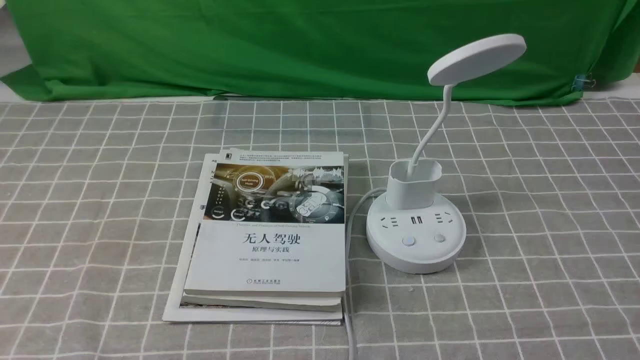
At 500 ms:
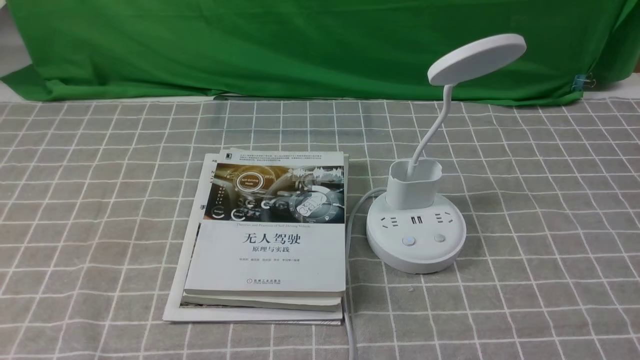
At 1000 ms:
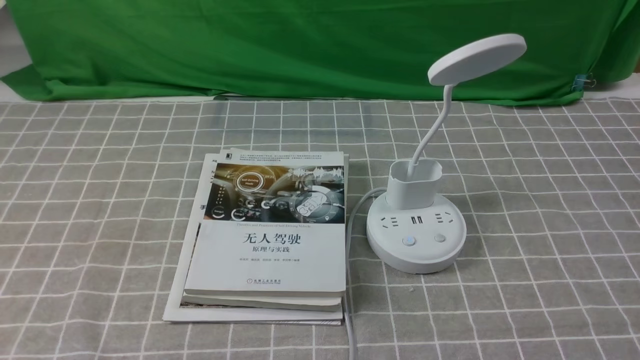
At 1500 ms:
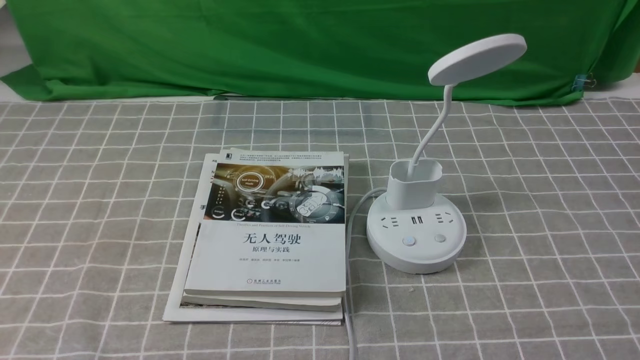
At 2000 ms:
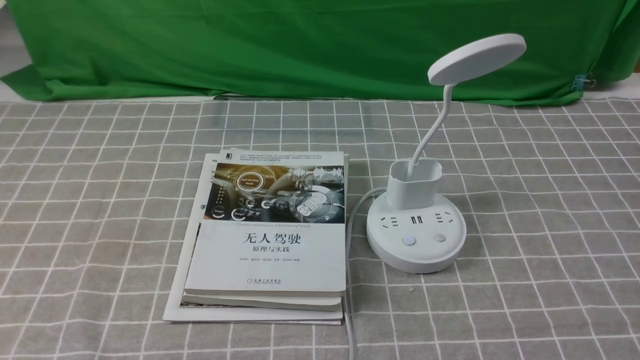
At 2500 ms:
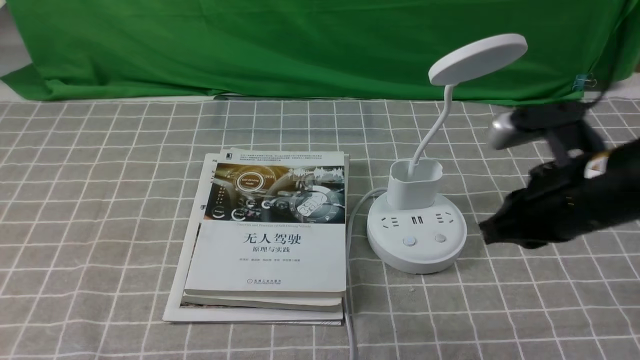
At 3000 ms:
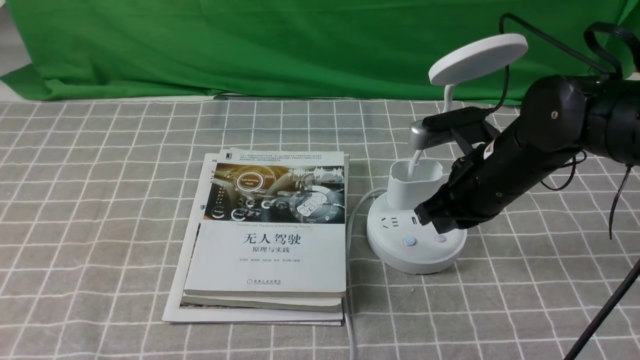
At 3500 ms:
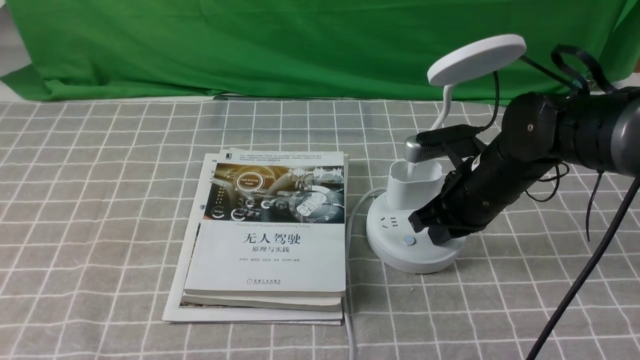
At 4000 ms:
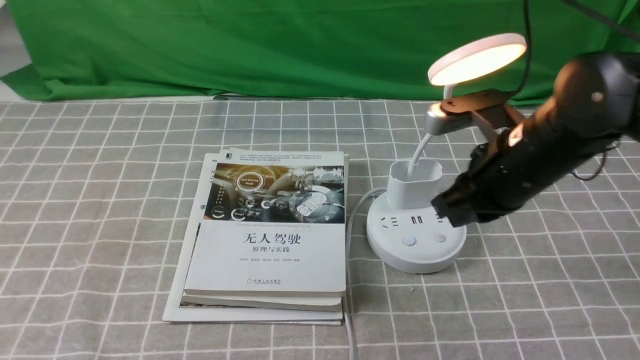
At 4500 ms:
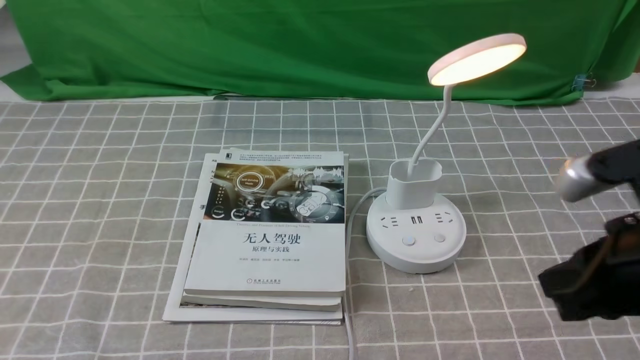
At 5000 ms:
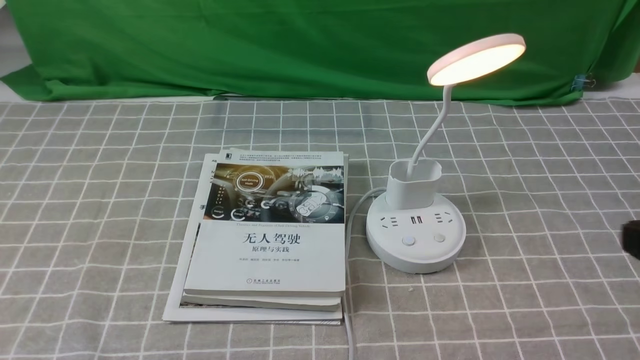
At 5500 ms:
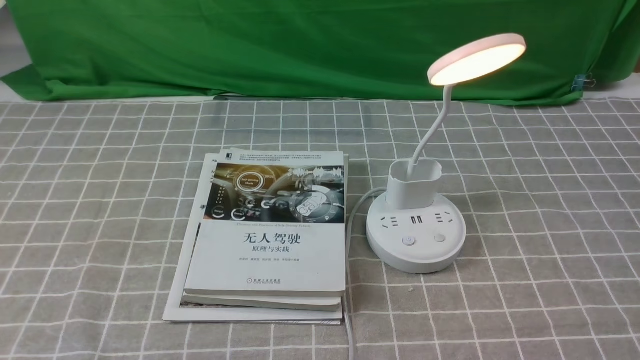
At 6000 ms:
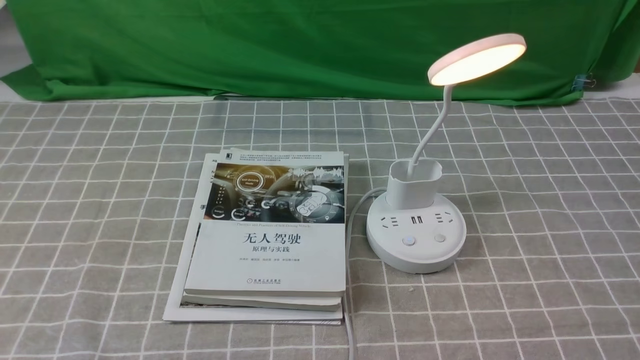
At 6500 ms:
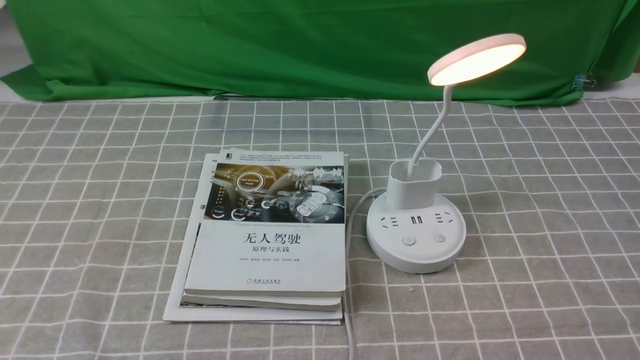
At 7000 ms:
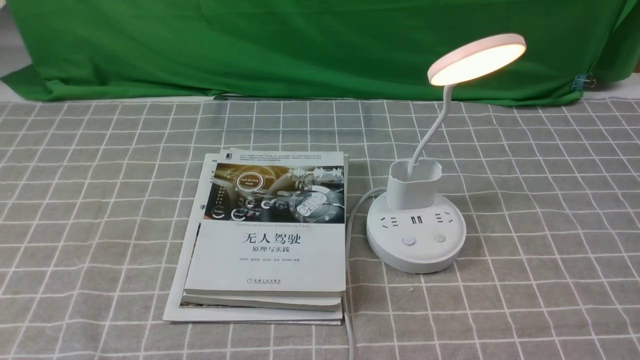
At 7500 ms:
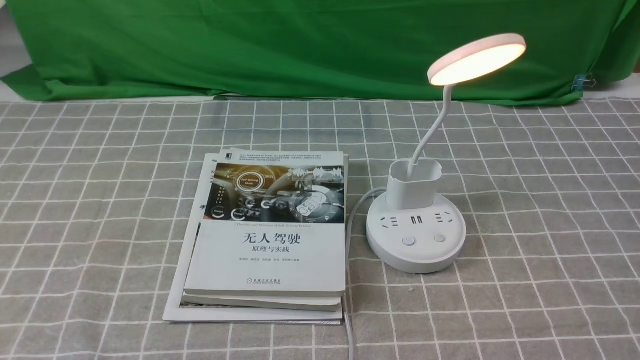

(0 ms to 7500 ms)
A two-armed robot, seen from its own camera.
Step, 0 ms - 3500 ms: use the right arm to press the button switch on the lamp holder.
2000 ms - 4000 ms: The right gripper heads forward and to the left, covering about 20 cm.
4000 ms - 5500 ms: The right gripper shifts roughly 30 cm backward and to the right.

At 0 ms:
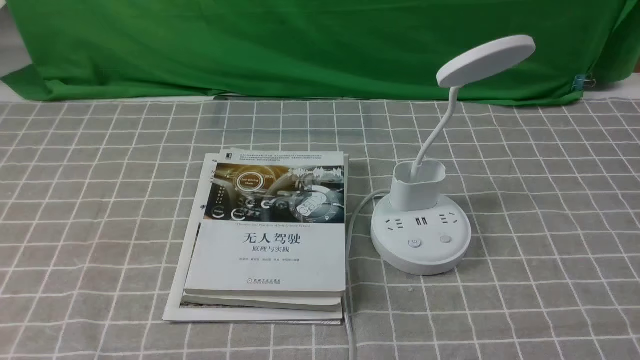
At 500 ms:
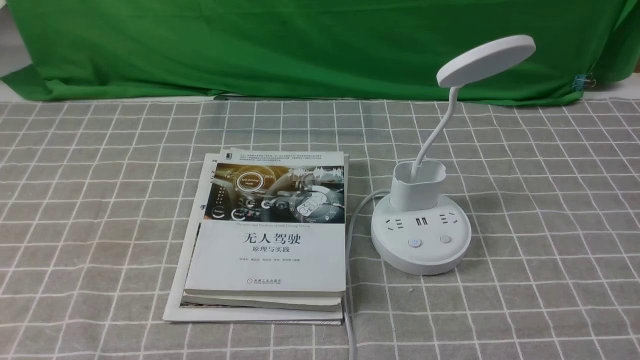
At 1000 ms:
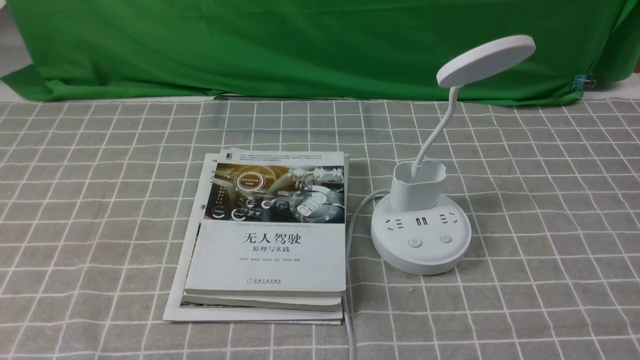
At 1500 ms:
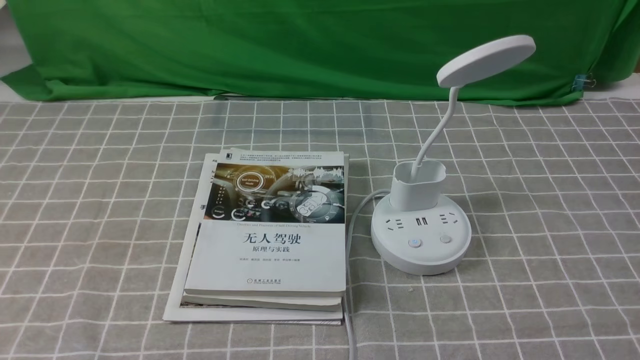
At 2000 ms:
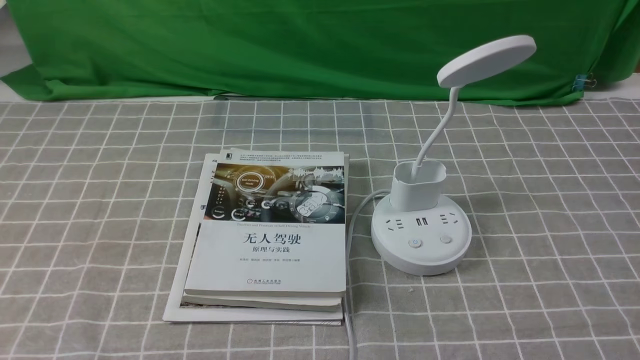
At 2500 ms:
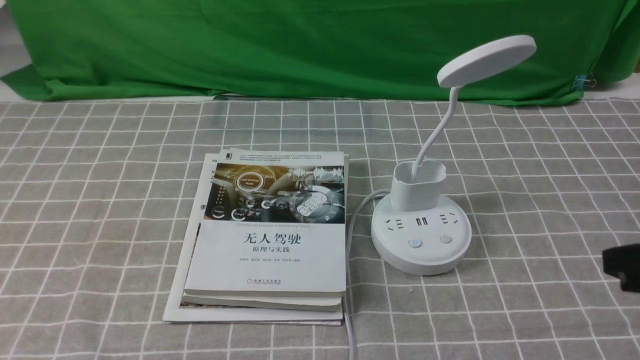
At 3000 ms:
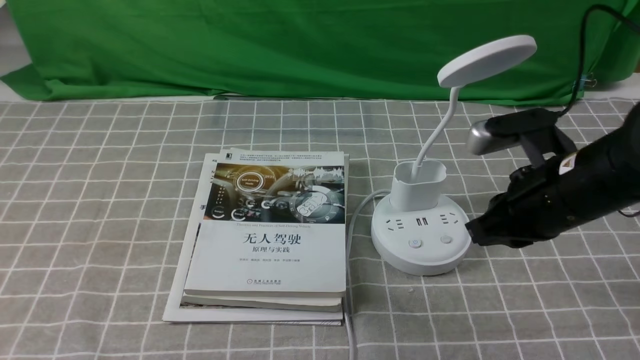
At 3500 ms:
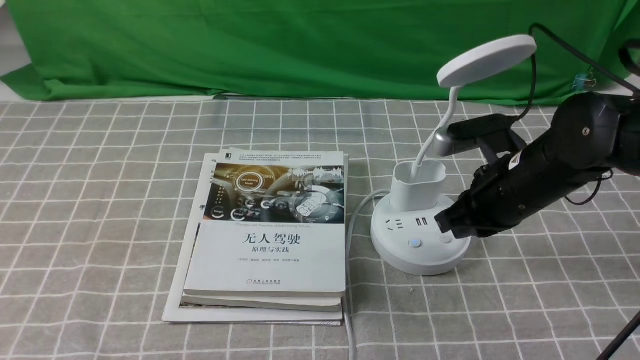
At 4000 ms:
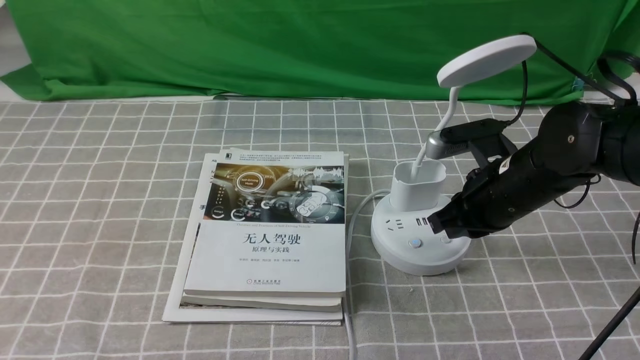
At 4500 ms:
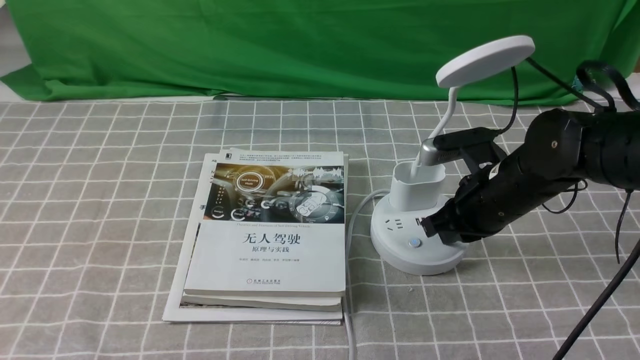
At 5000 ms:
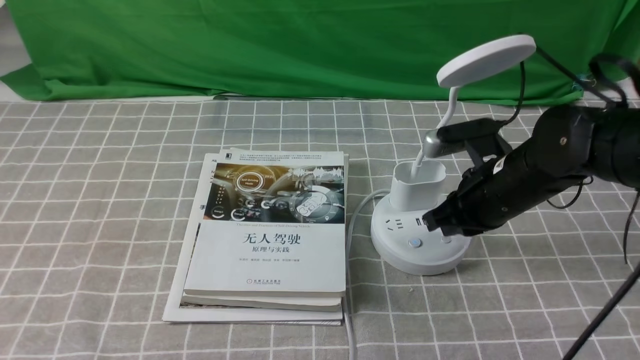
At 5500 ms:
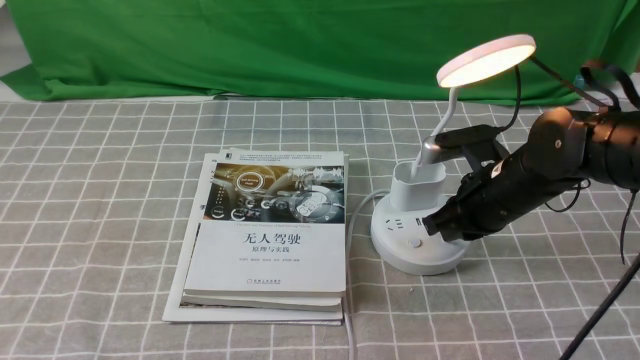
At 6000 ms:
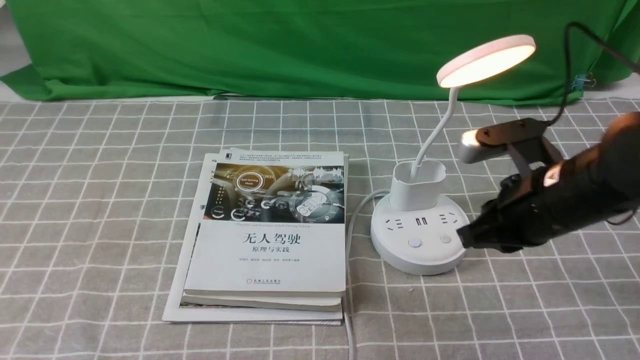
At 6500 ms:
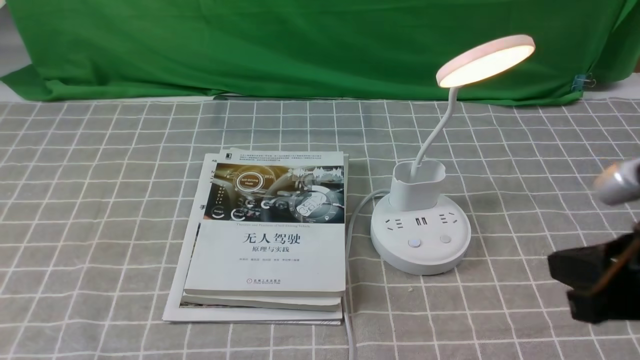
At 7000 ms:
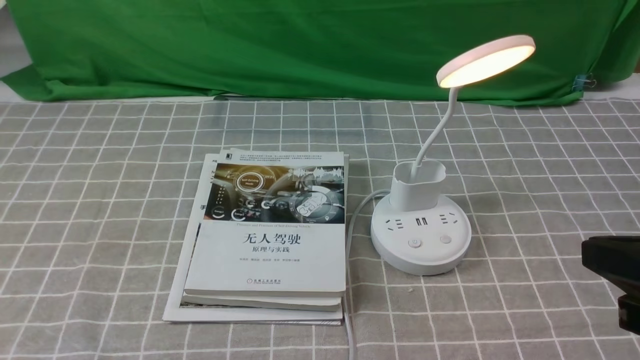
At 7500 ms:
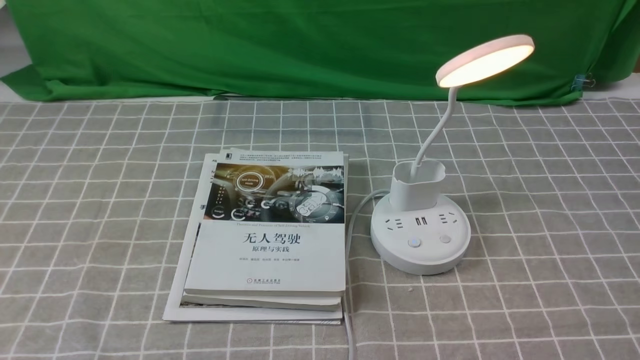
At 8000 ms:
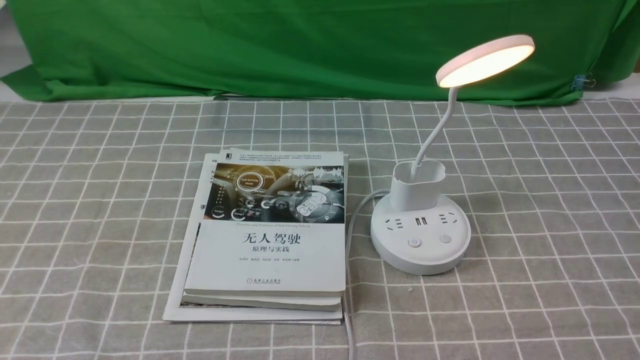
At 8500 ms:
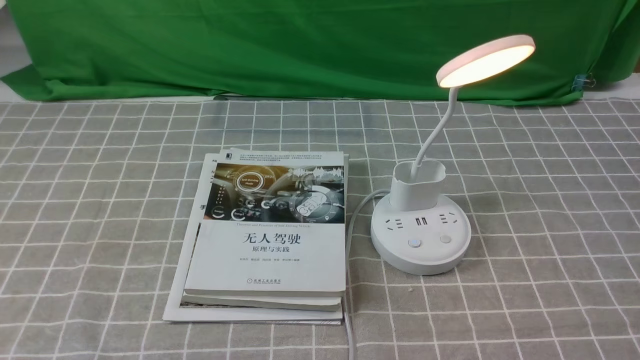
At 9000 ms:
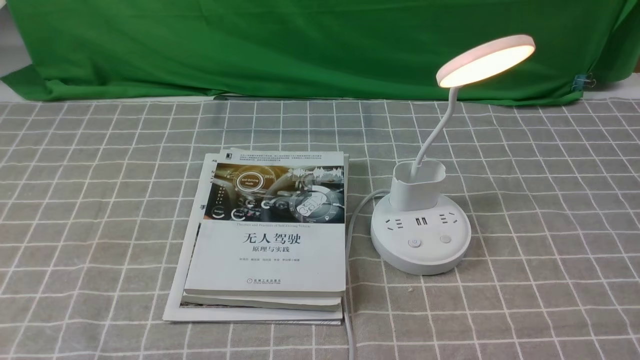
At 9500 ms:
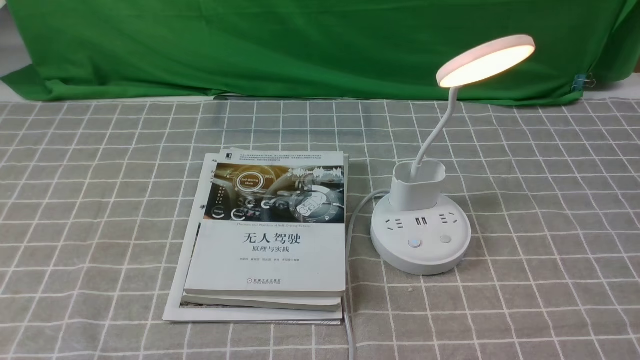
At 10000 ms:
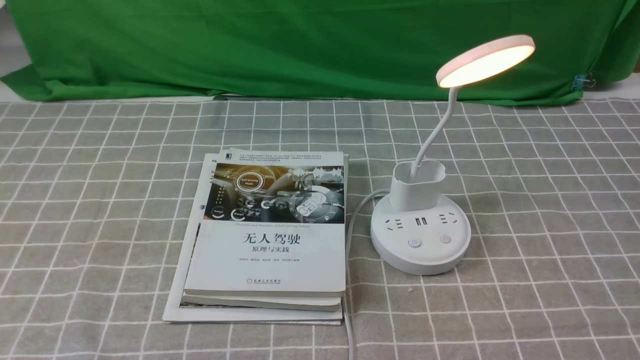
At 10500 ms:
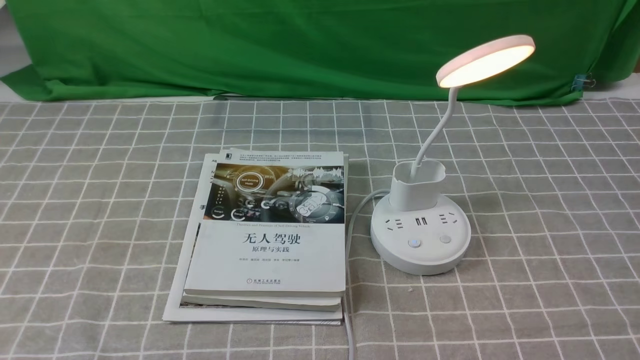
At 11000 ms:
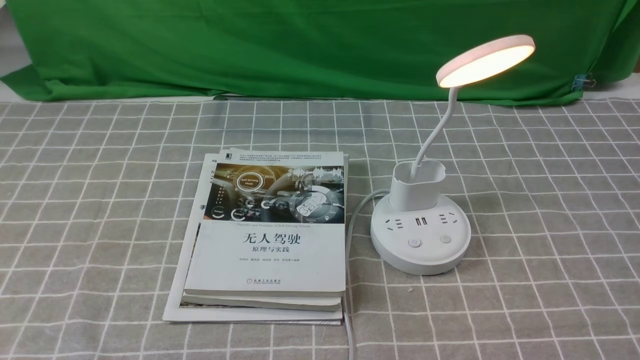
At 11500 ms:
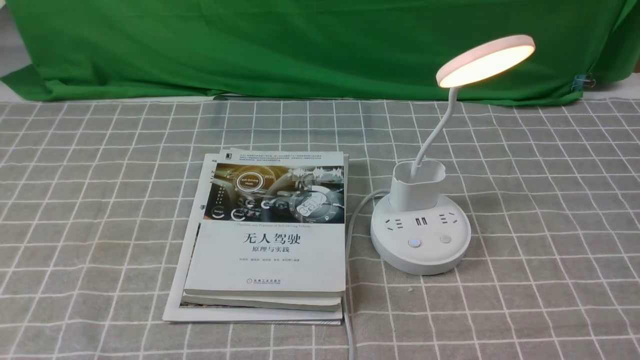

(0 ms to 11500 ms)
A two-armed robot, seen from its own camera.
Step, 0 ms - 5500 ms: use the right arm to press the button switch on the lamp holder.
2000 ms - 4000 ms: The right gripper is displaced forward and to the left by some 30 cm, and closes.
4000 ms - 6000 ms: The right gripper ends up some 5 cm from where it was.
6000 ms - 7500 ms: The right gripper goes roughly 25 cm backward and to the right.
